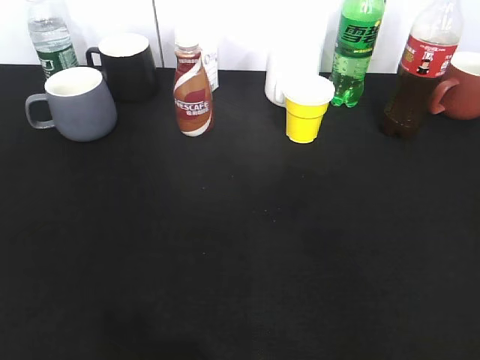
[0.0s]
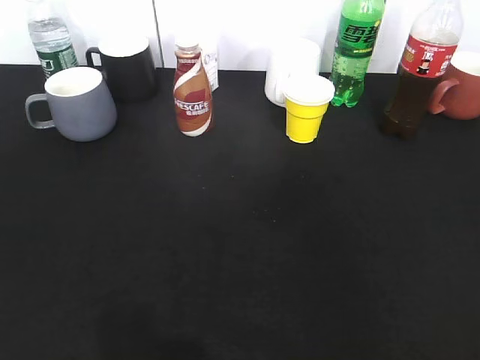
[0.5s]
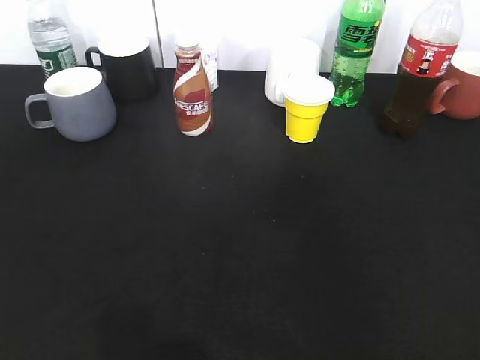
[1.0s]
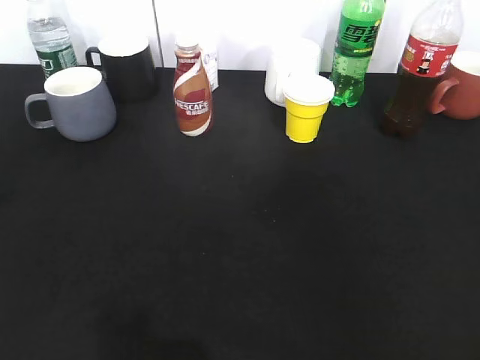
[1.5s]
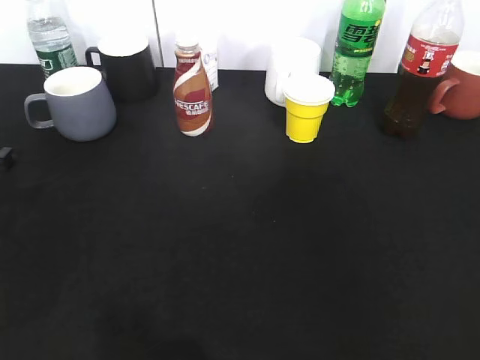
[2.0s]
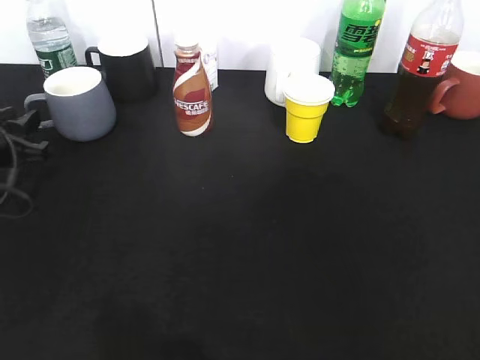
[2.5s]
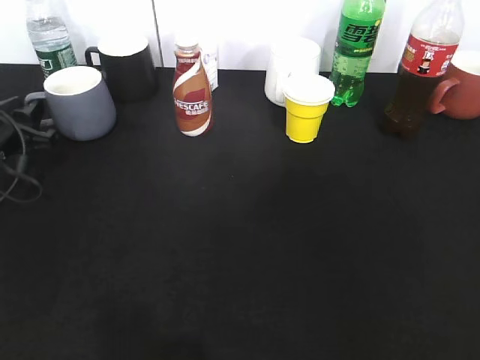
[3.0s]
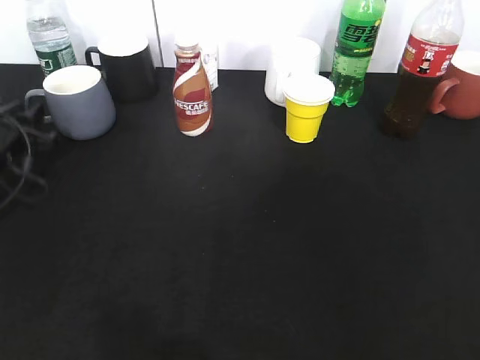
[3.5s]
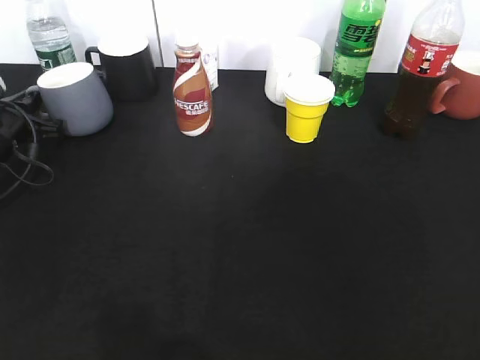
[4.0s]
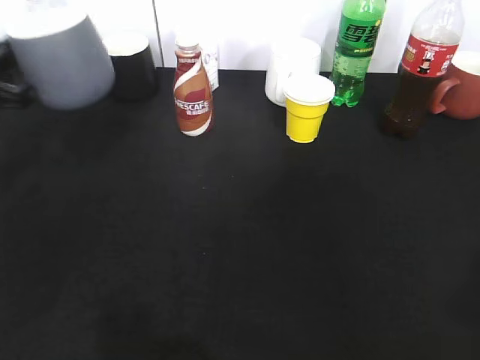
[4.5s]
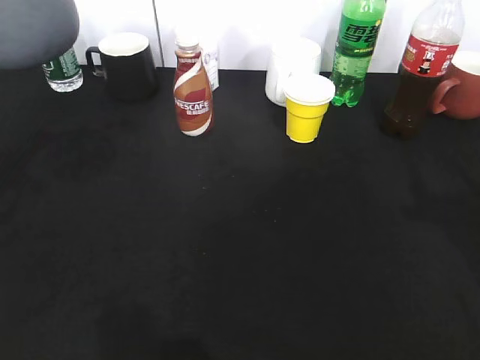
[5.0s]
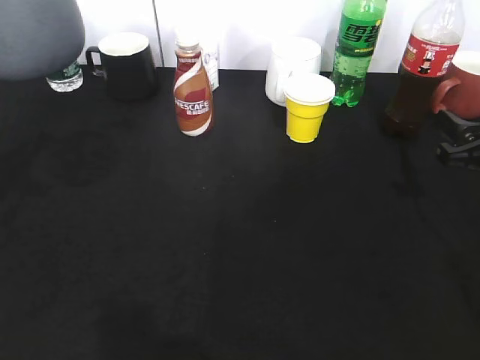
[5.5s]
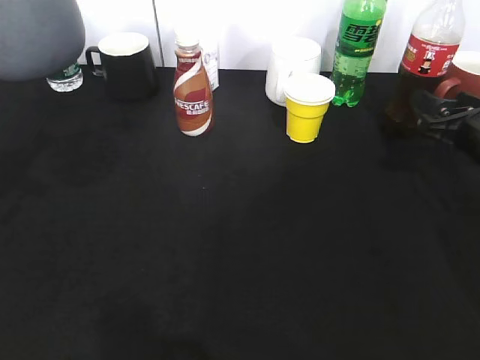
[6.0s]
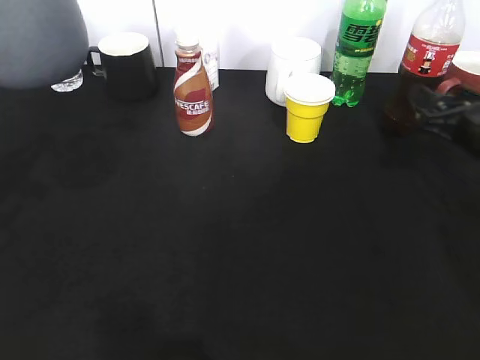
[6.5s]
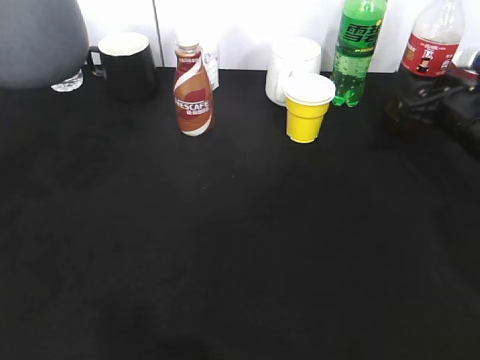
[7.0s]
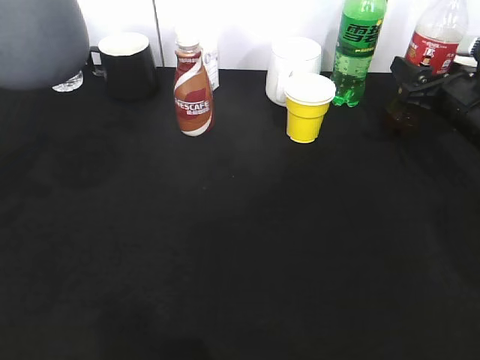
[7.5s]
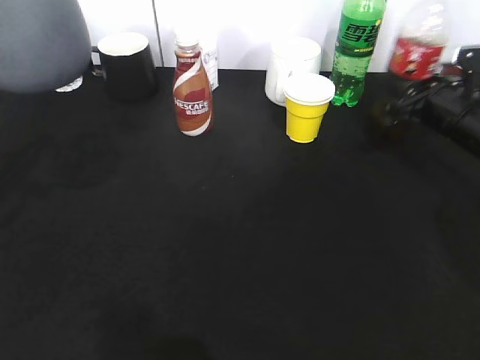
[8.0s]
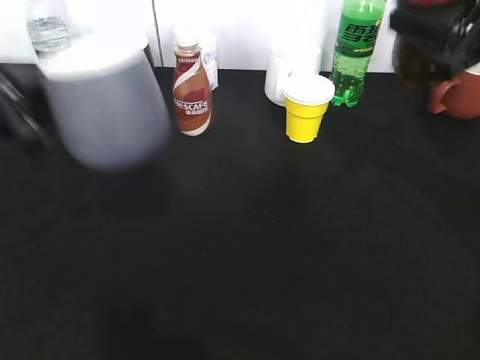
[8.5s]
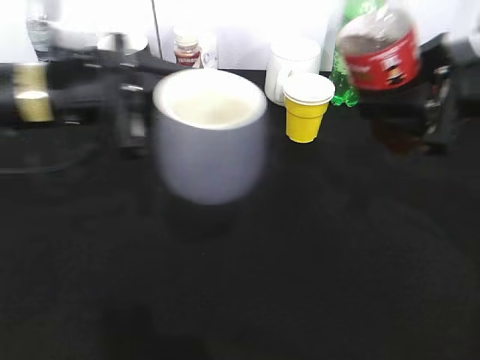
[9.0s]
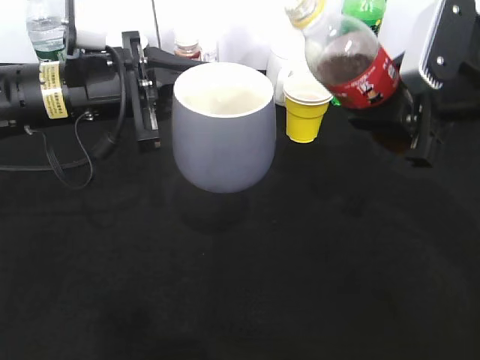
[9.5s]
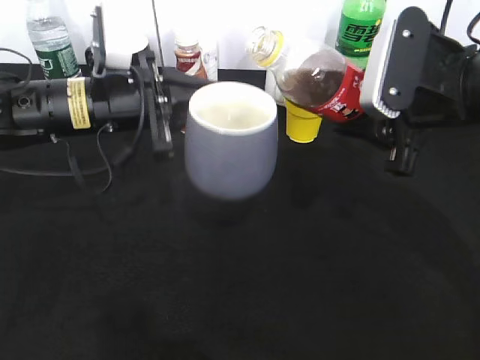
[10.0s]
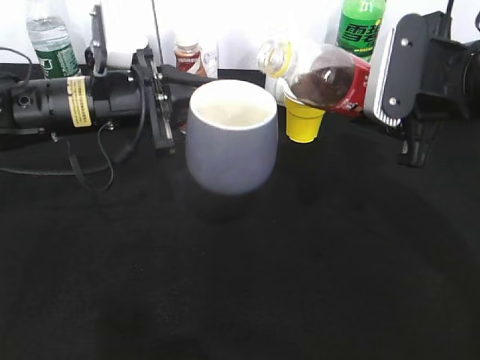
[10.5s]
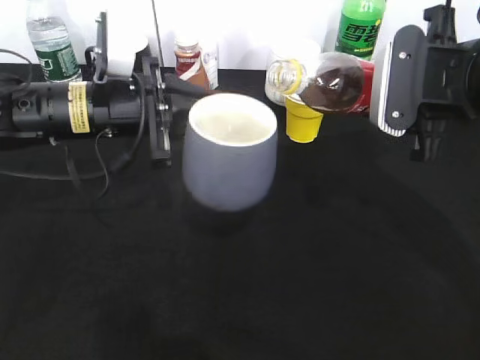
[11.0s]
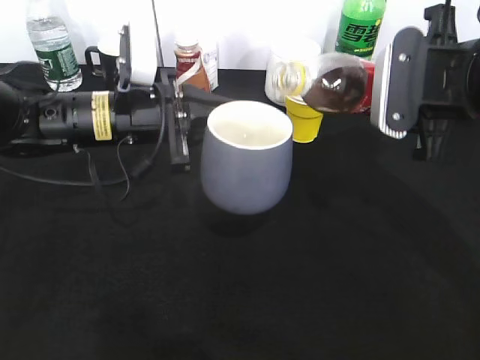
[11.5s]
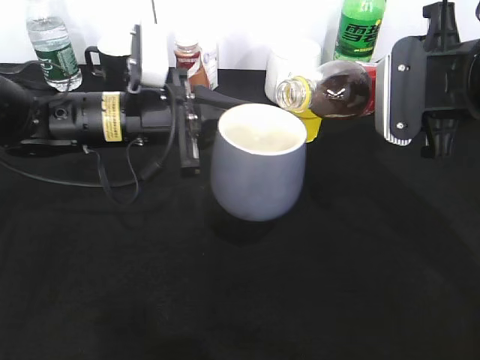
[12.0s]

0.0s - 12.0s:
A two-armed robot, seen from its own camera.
Step, 4.0s - 4.5s: Lift the grey cup with left gripper.
Step, 5.0s - 7.5s: Grasp the bottle with cola with right gripper.
0.0s - 2.0s: The left gripper travels forward and downward by approximately 30 cm, and closes its fingers.
2.0s - 4.0s: The left gripper travels forward and downward by some 15 cm, and opens, then closes once more.
4.0s - 6.0s: The right gripper heads forward and downward, covering roughly 35 cm; the left gripper goes approximately 25 cm upward and backward.
6.0s - 8.0s: The right gripper heads forward, covering about 5 cm, and closes its fingers.
8.0s - 10.0s: The left gripper heads to the right, forward and downward, covering approximately 20 cm; the right gripper travels upward, backward and to the left by approximately 15 cm.

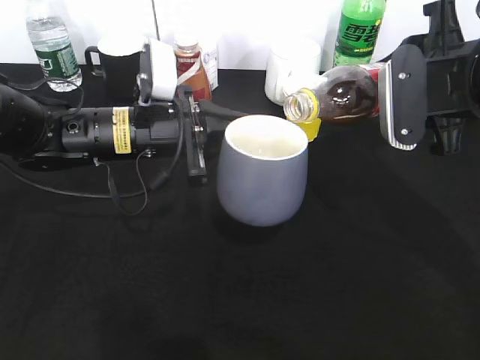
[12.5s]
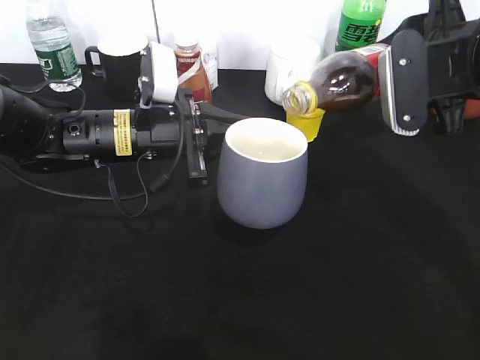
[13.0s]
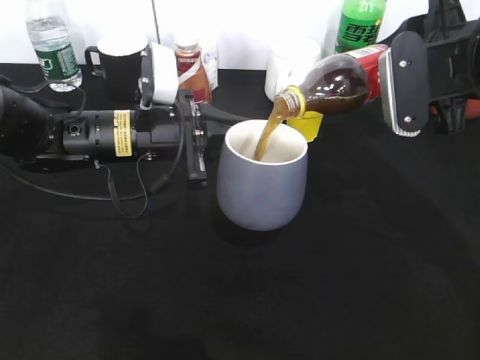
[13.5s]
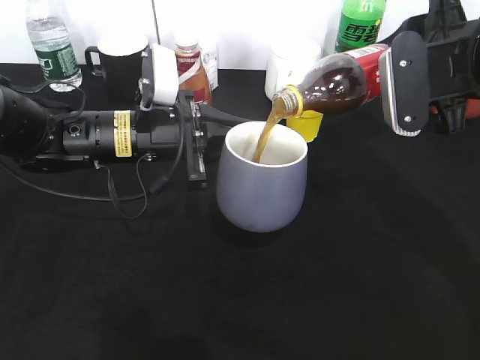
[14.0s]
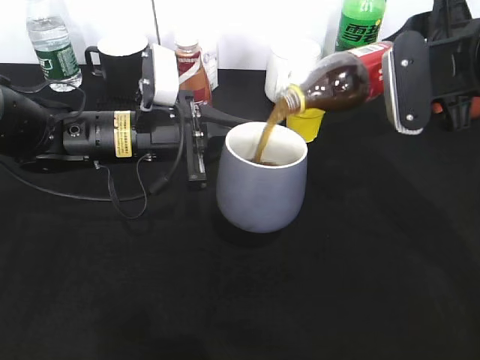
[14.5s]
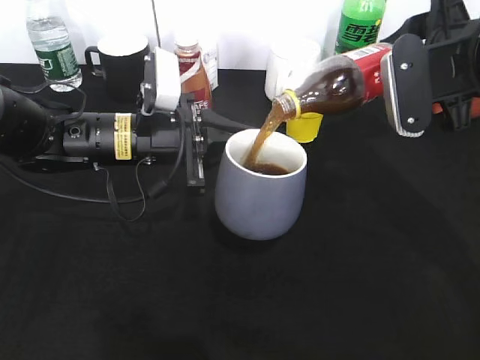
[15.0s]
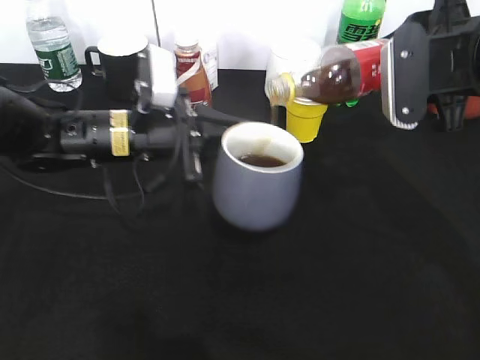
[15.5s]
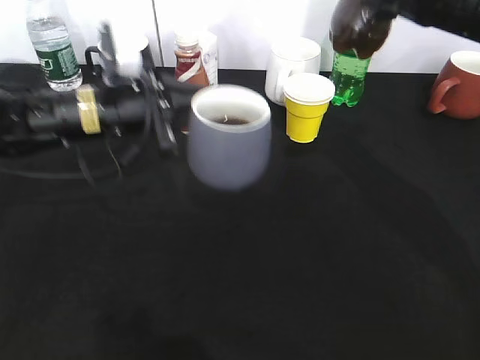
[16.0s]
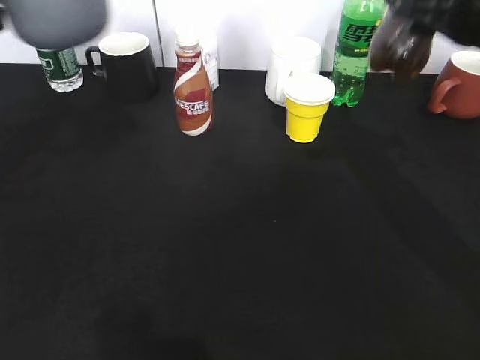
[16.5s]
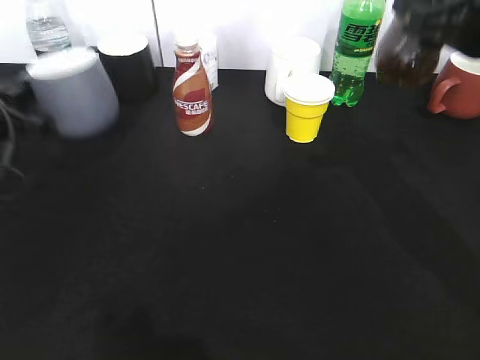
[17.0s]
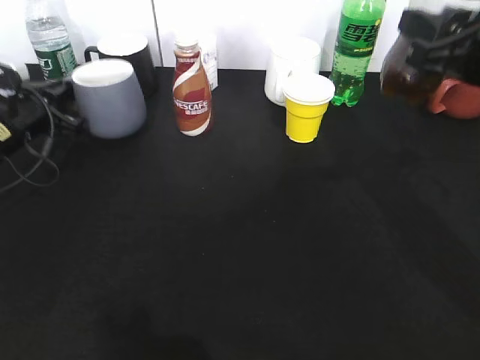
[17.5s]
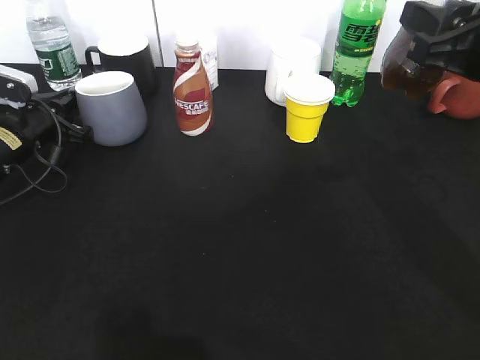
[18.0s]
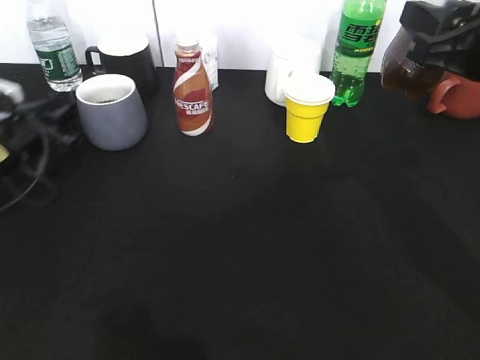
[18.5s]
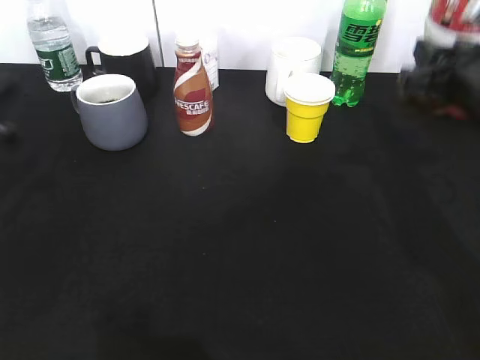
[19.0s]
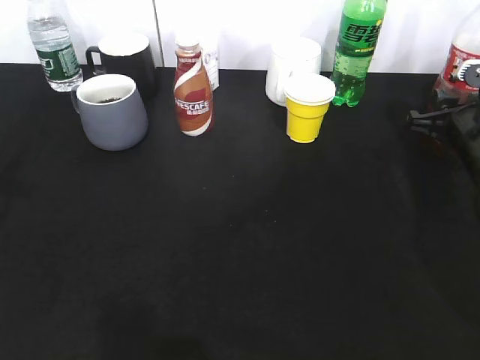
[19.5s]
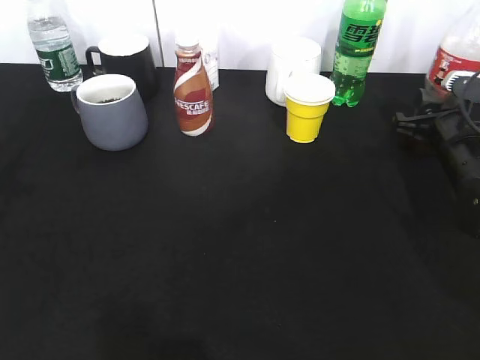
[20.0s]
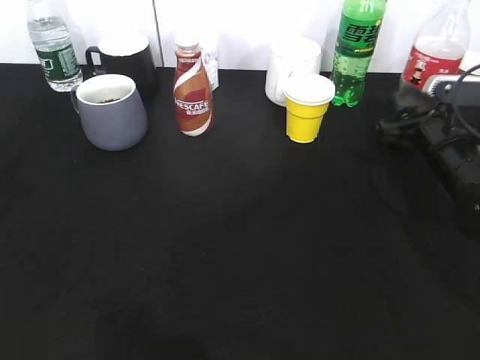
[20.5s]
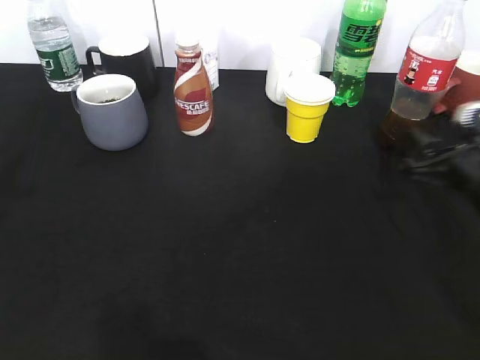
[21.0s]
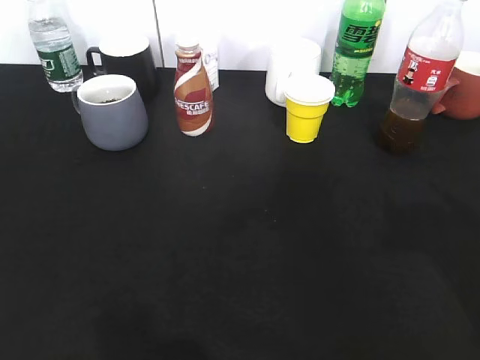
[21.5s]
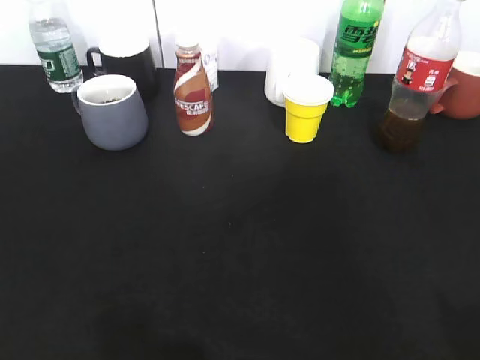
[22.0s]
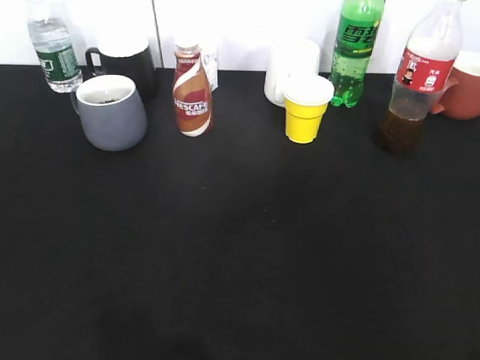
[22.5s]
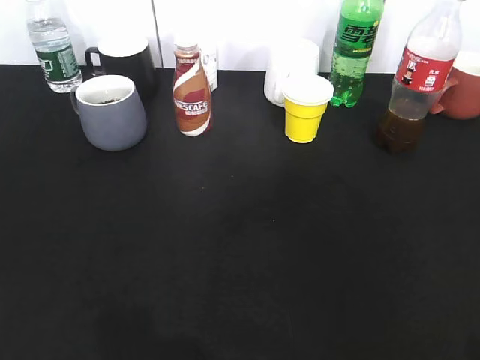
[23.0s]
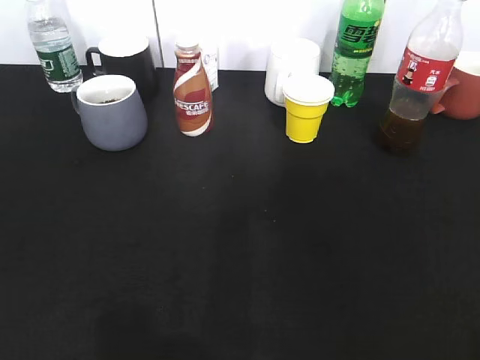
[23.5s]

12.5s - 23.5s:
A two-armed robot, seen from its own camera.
Step, 12.5s - 14.5s: Pour the cola from bottle to cup with right gripper.
Step, 15.0s - 18.5s: Place the grey cup on the table with left gripper.
Step, 19.0s - 21.0s: Place the cola bottle on the table with right gripper.
12.5s - 14.5s: The grippers stay close to where they were, moving slightly.
14.5s - 16.0s: The left gripper shifts by approximately 5 cm.
16.0s - 18.0s: The right gripper moves about 5 cm. The left gripper is displaced to the left and downward by some 15 cm.
18.0s - 20.0s: The left gripper is displaced backward and upward by about 20 cm, and opens up; the right gripper is displaced downward and forward by approximately 20 cm.
20.0s - 21.5s: The right gripper moves backward and upward, about 25 cm, and opens its fingers.

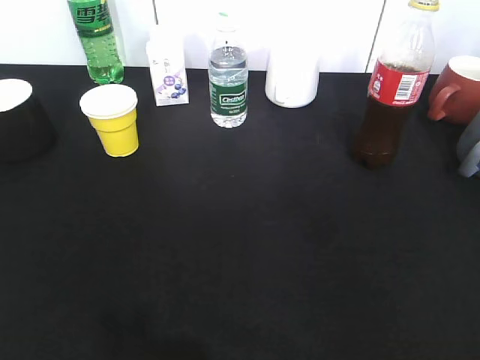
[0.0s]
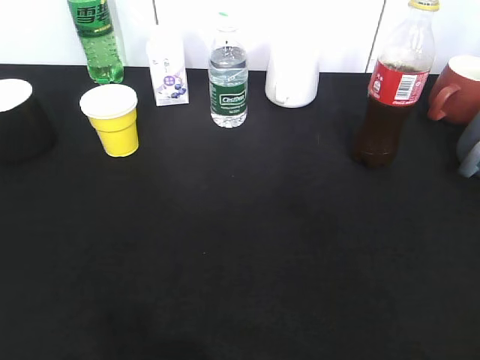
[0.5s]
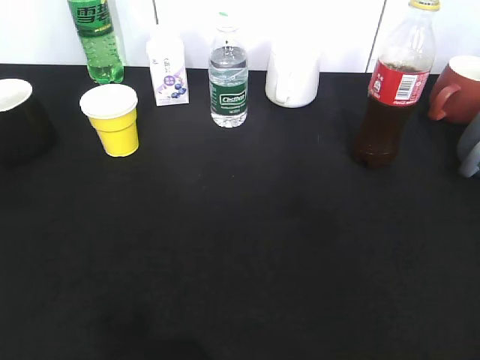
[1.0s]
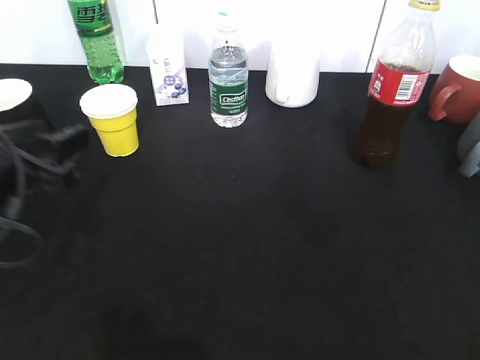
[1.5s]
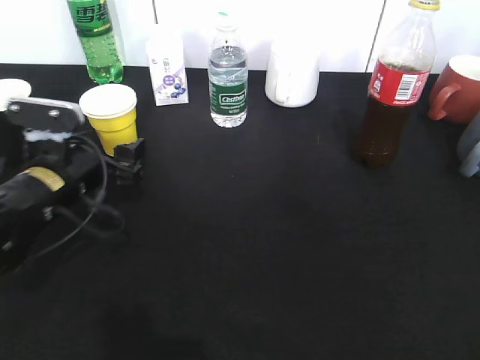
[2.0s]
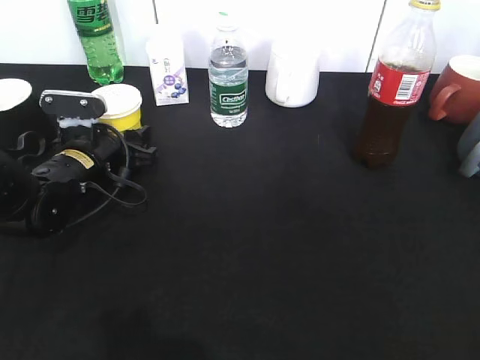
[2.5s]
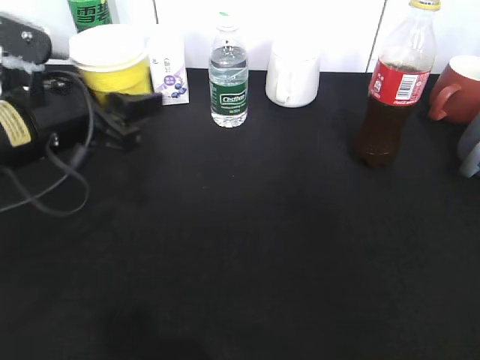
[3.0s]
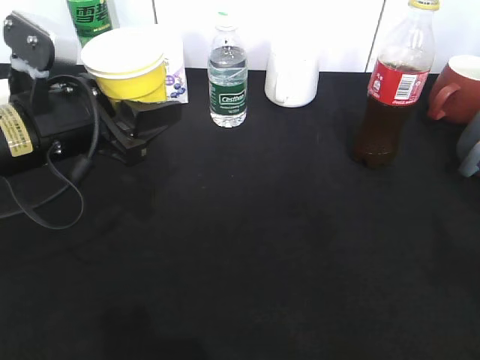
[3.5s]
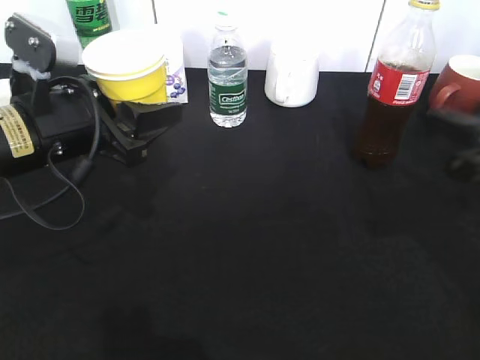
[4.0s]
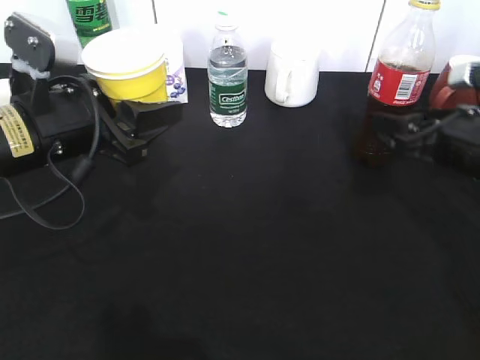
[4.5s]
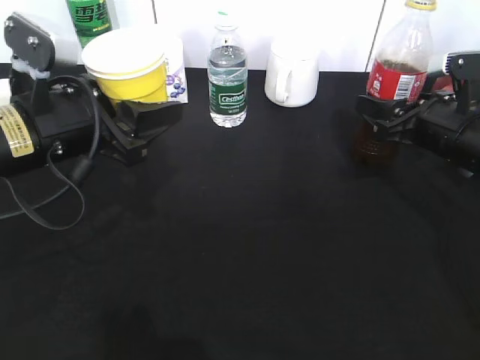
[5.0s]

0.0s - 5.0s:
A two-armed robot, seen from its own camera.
Step, 0.0s - 2.5s: Grasp the yellow paper cup with left gripper.
0.0s - 2.5s: The left gripper moves forward and downward, roughly 40 cm, and opens up.
2.5s - 5.0s: The right gripper travels forward by approximately 35 cm, and closes. Meanwhile the left gripper travels upward and backward by roughly 15 cm.
